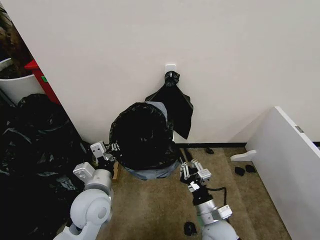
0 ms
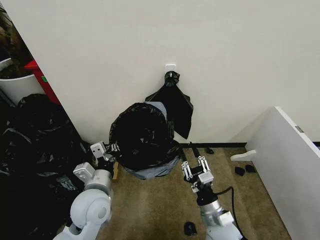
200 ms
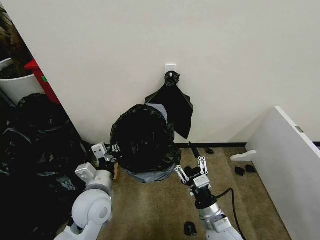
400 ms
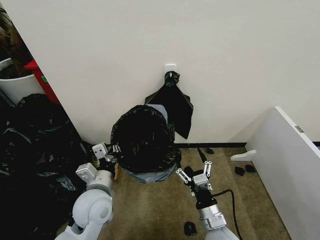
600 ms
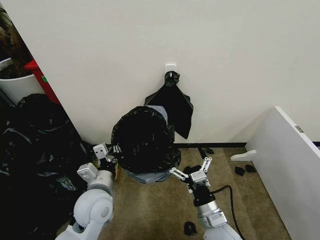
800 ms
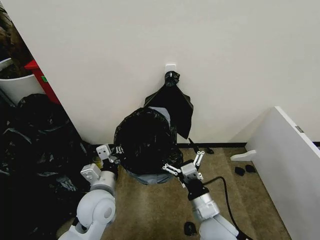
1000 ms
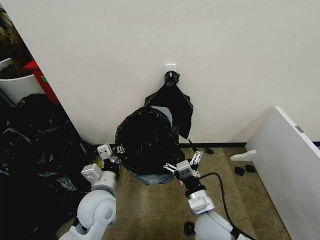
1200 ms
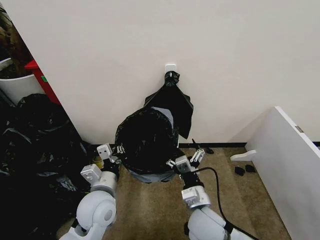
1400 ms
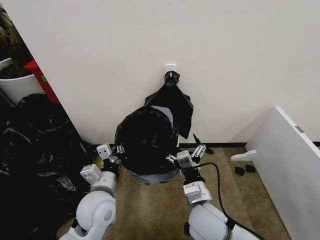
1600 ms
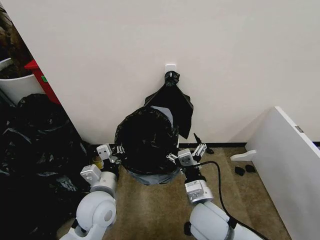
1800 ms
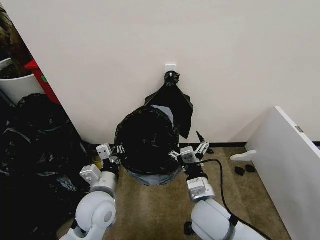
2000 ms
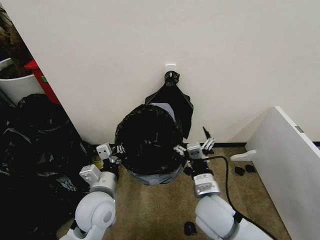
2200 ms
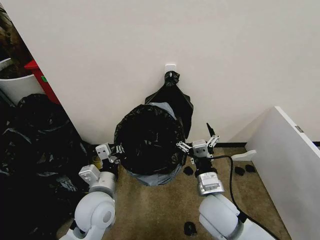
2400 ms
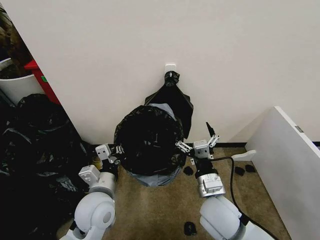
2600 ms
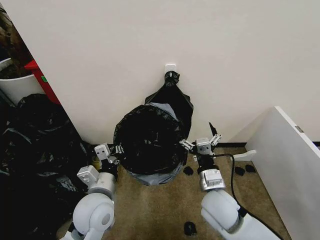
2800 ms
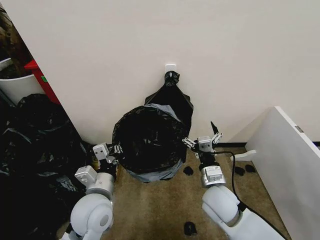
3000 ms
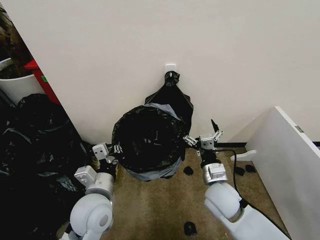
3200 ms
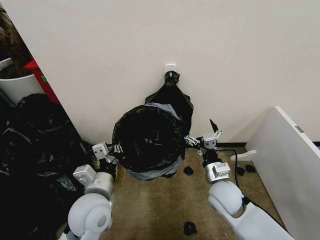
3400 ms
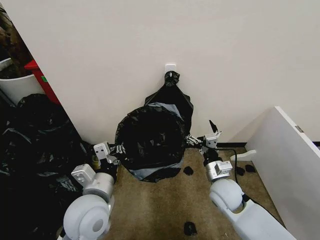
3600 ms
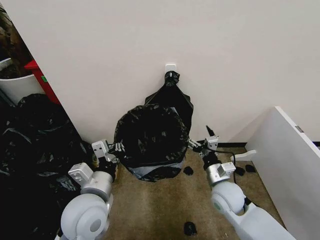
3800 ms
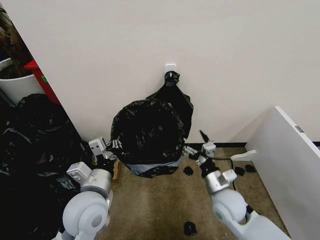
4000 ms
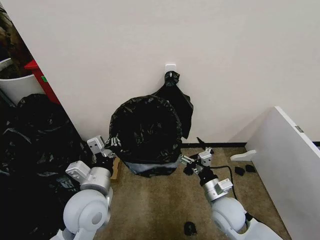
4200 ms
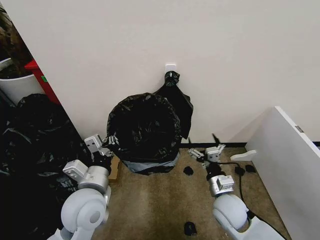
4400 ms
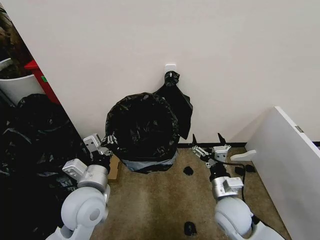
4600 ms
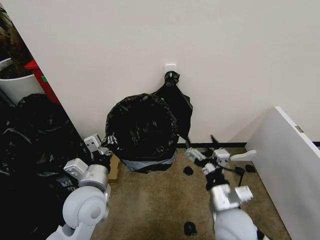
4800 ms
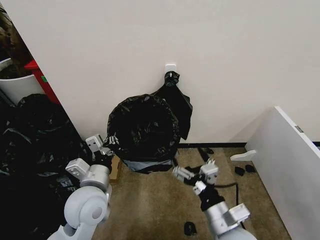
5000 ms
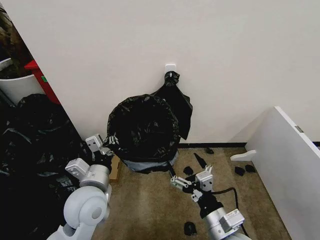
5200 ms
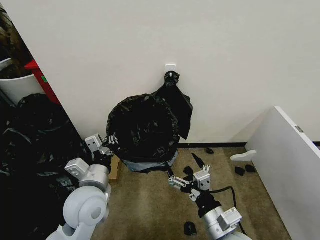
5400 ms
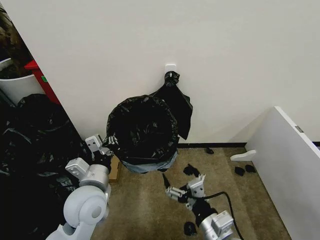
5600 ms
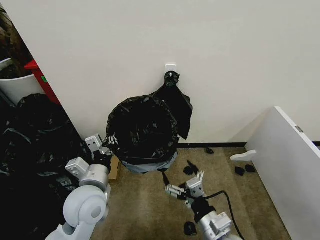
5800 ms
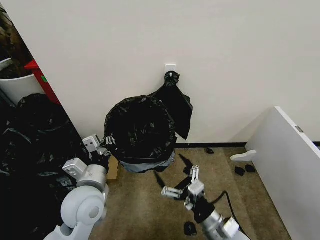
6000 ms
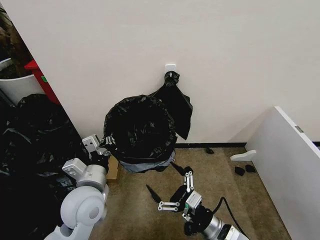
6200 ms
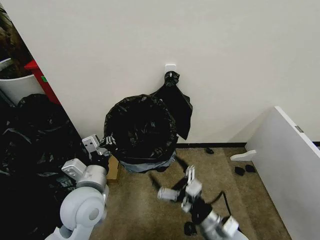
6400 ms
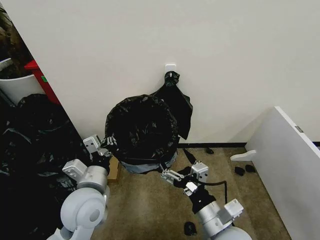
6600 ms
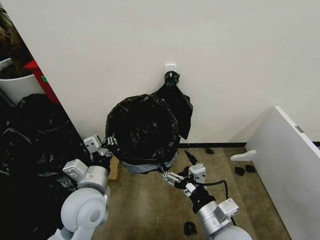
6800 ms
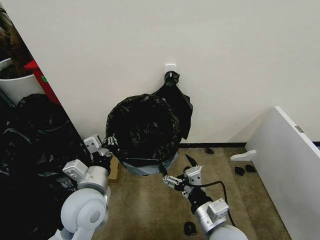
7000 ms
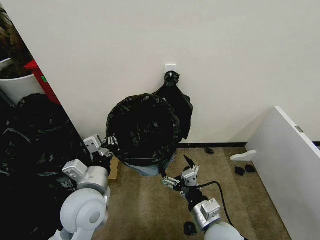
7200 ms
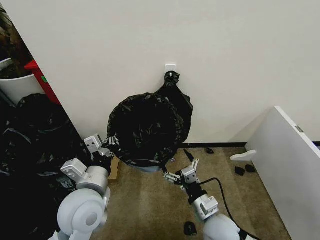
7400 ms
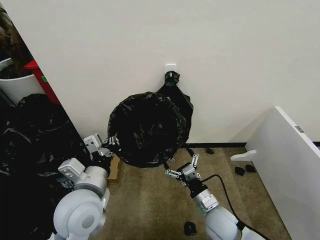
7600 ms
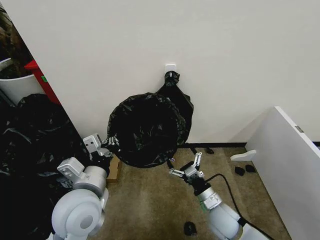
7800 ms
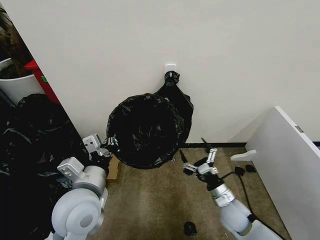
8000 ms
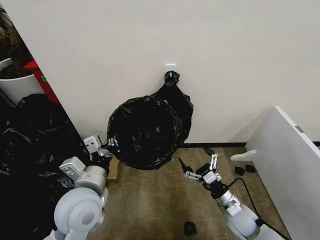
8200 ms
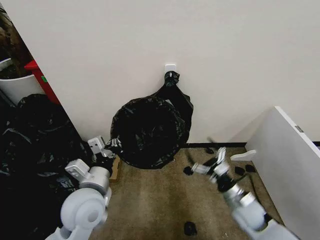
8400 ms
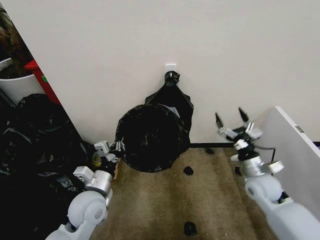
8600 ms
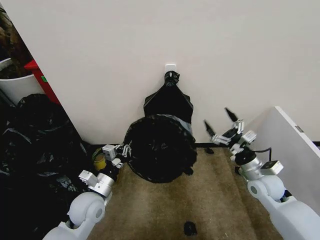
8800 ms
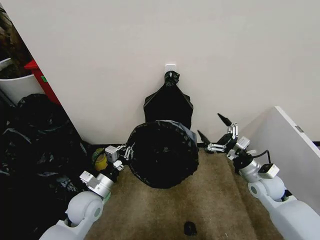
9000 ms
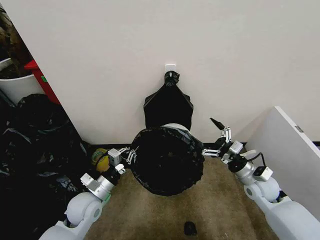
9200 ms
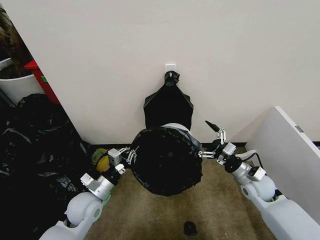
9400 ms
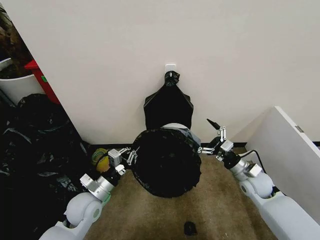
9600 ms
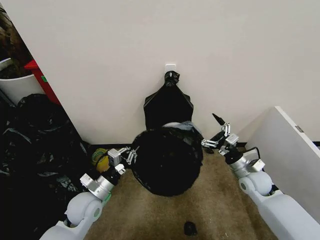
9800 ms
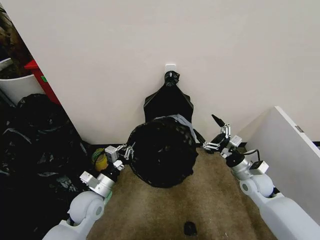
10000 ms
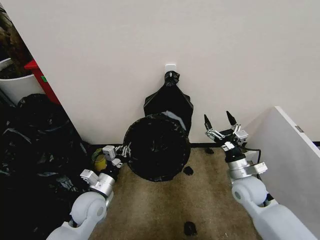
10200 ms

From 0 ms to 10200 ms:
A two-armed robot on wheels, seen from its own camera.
Task of the whole recording: Place the garbage bag over the trash bin.
From 0 ms to 1400 ms: The right gripper goes about 5 cm upward, and opens.
From 1400 ms to 3000 ms: The right gripper shifts about 5 cm forward.
From 3000 ms to 4400 ms: The right gripper heads downward, covering roughly 5 cm.
From 4400 ms to 5800 ms: The right gripper travels backward by some 10 cm.
From 5800 ms to 7200 ms: The right gripper swings up and down, about 10 cm each way, with 2 reversals.
From 7200 ms to 8800 ms: The left gripper travels downward by about 10 cm. Meanwhile the right gripper goes roughly 25 cm to the right and forward.
From 8800 ms to 10200 ms: There are only small adjustments of the grippers.

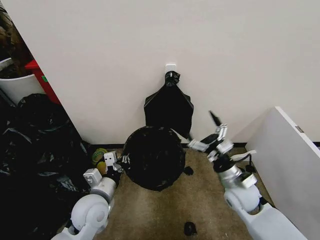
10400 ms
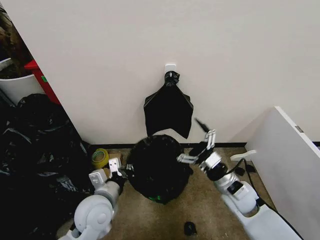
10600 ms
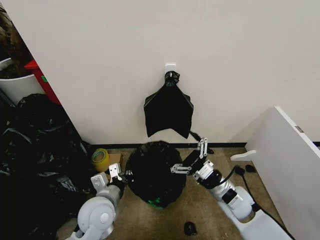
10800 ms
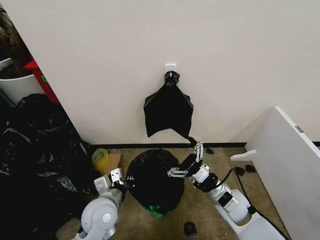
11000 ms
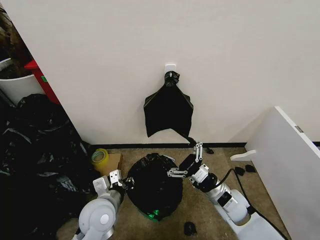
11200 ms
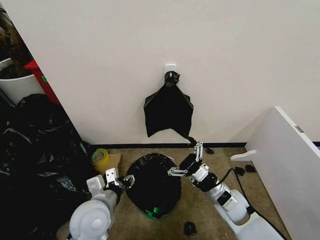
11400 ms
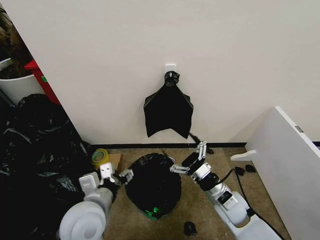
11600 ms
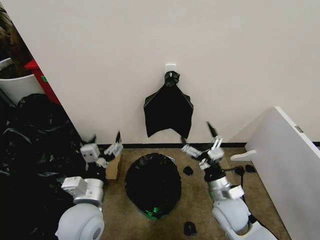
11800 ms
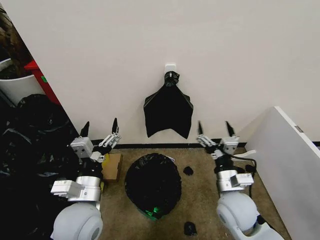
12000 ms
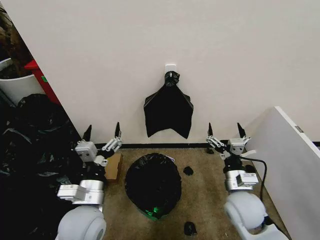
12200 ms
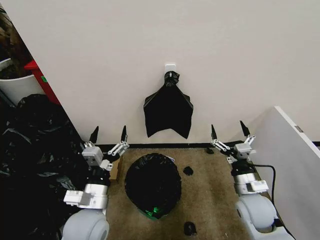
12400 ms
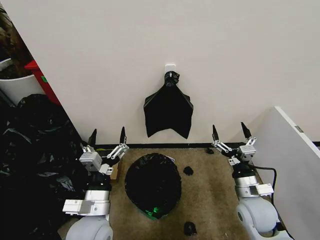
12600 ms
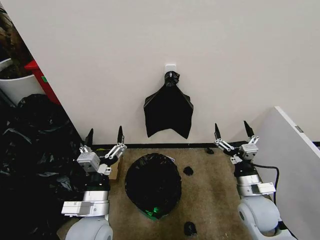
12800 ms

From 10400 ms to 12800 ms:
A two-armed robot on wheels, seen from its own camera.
Task of the whole recording: Place the garbage bag over the trash bin.
From 10400 ms to 11600 ms: The left gripper shifts approximately 10 cm upward and backward, and opens. Meanwhile the right gripper ends up roughly 5 cm from where it was.
From 11600 ms to 12800 ms: The right gripper heads to the right, covering about 5 cm.

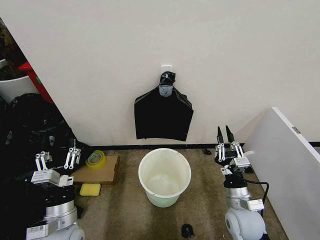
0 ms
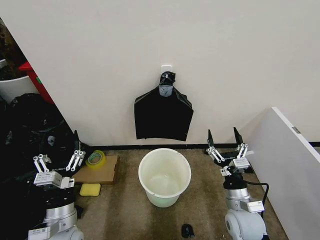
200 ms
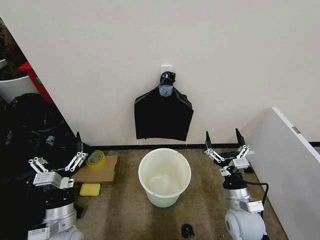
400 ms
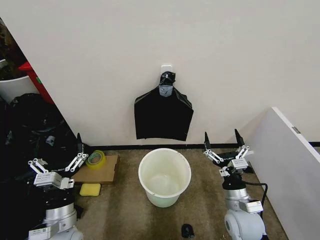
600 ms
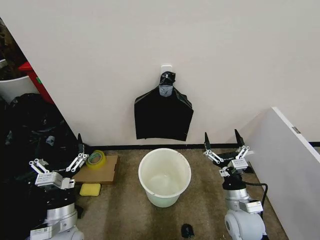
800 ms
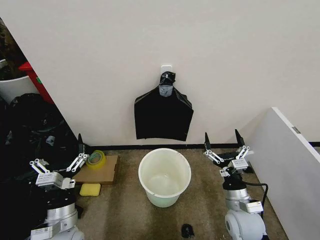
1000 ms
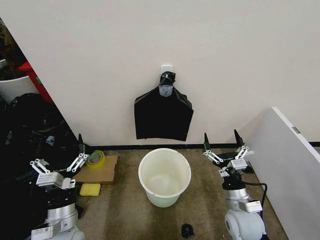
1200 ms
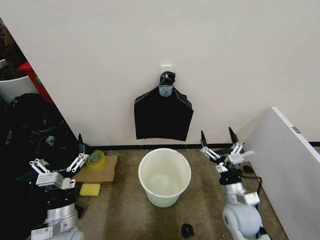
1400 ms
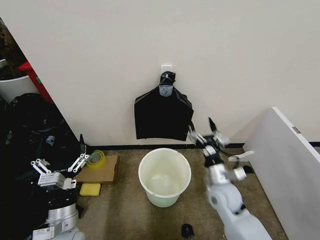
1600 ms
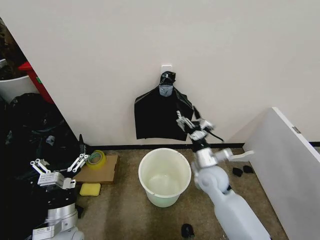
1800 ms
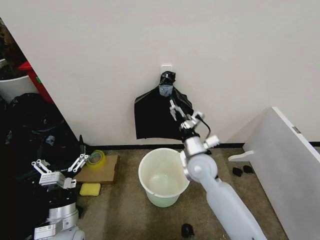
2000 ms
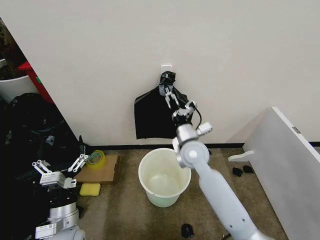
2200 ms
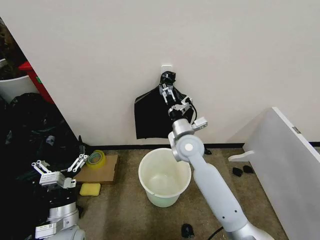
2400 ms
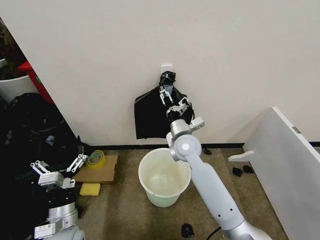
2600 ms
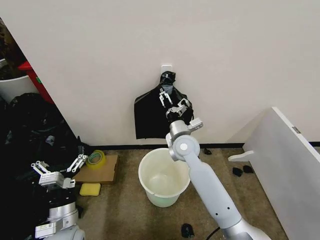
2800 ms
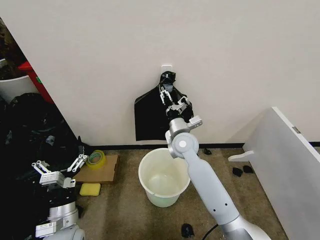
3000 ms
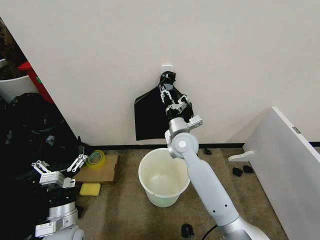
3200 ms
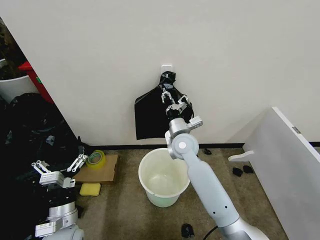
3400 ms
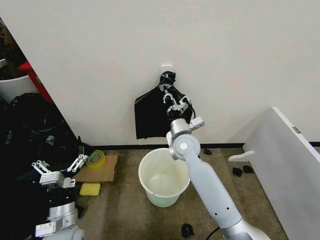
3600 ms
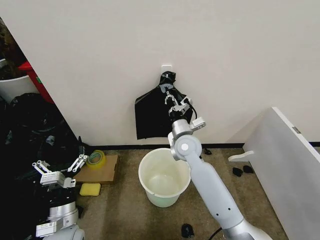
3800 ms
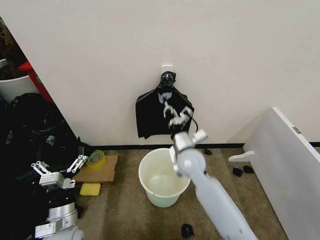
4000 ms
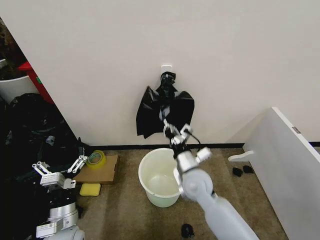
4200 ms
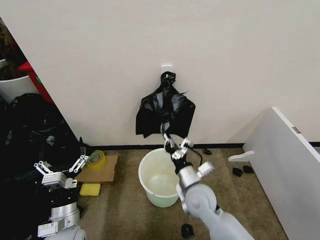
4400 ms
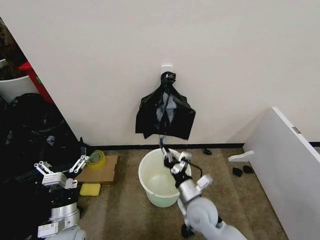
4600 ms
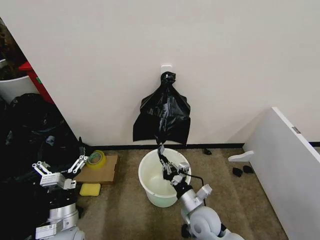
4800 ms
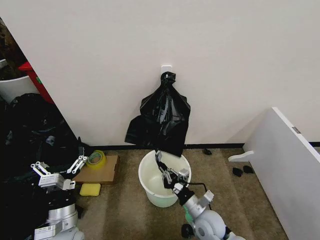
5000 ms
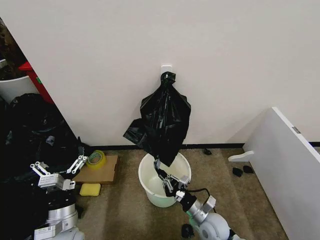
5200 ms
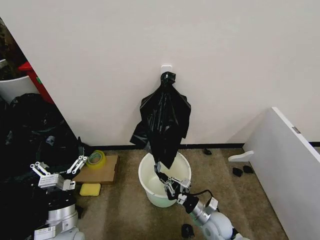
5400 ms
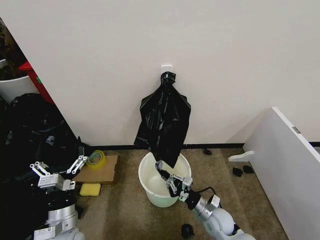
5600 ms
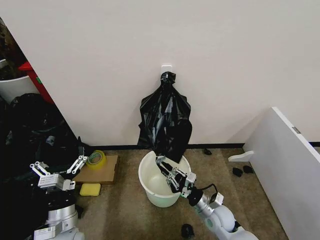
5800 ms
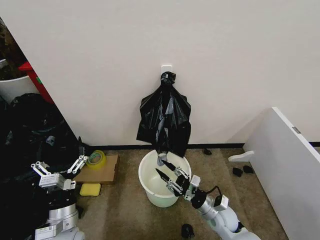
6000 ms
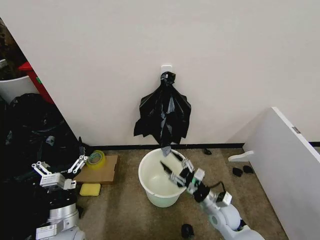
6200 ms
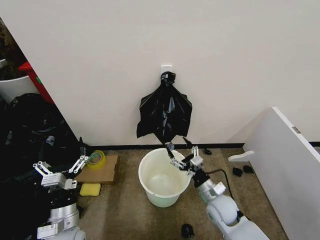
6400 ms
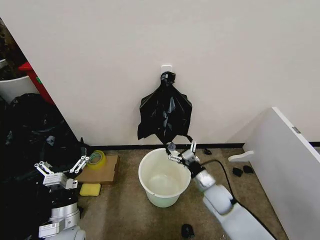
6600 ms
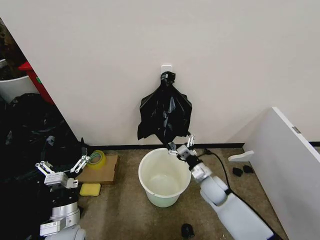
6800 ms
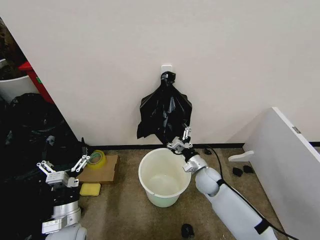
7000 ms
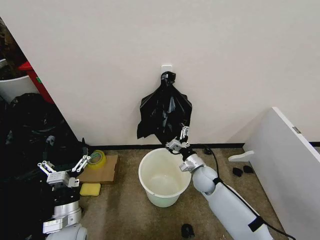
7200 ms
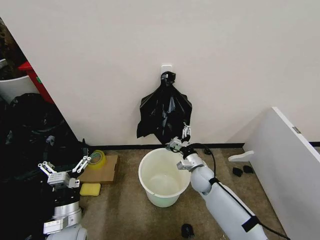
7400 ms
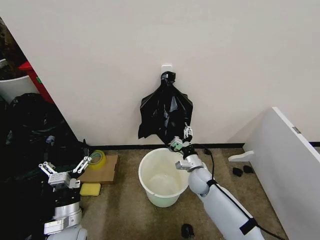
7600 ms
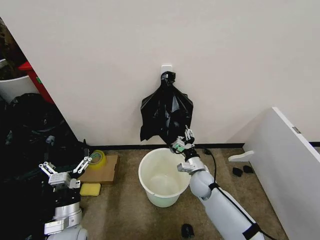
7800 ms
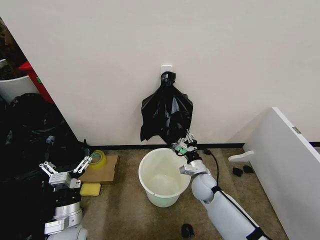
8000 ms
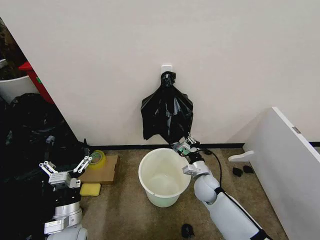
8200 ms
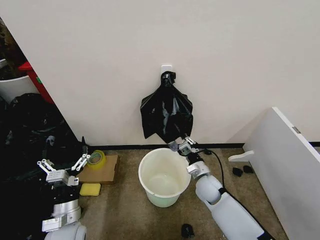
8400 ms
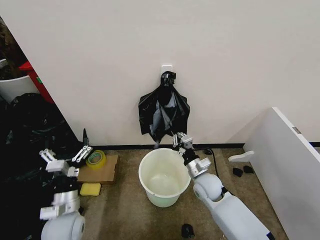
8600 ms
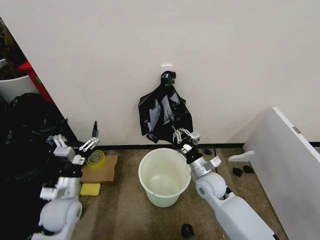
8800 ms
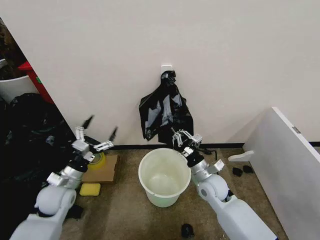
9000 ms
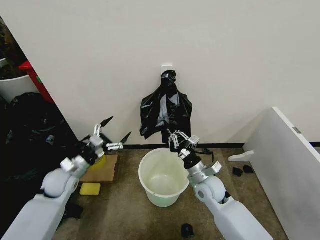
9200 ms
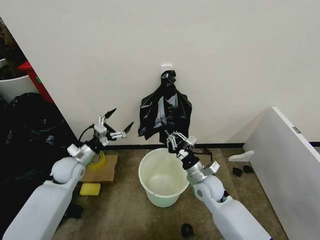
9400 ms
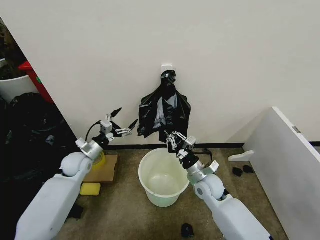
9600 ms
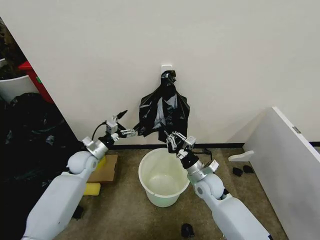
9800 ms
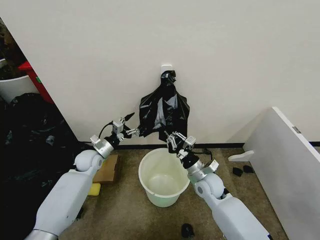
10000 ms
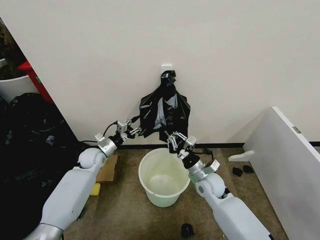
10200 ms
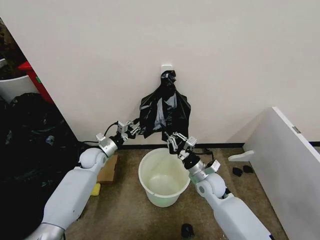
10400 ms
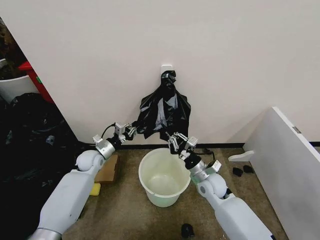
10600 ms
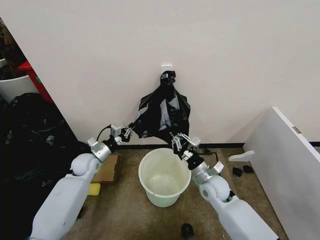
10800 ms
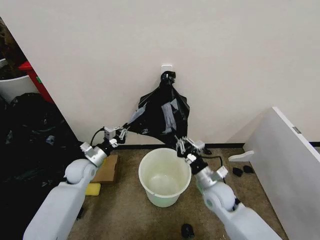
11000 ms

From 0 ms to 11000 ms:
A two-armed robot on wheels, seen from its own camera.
Task of the whole recording: Place the garbage bag over the trash bin.
From 1600 ms to 3200 ms: The right gripper travels forward, to the left and upward by some 20 cm, and closes up.
From 3200 ms to 4800 ms: The right gripper heads backward and downward, covering some 25 cm, and closes.
From 4800 ms to 6200 ms: The right gripper moves to the right, some 10 cm, and opens up.
From 6200 ms to 7800 ms: The right gripper is displaced forward and to the left by approximately 10 cm, and opens, then closes once more.
From 7800 ms to 9400 ms: The left gripper moves forward, roughly 20 cm. The right gripper travels upward by approximately 5 cm, and closes its fingers.
From 9400 ms to 11000 ms: The left gripper reaches some 10 cm forward, then returns, and closes its fingers.
